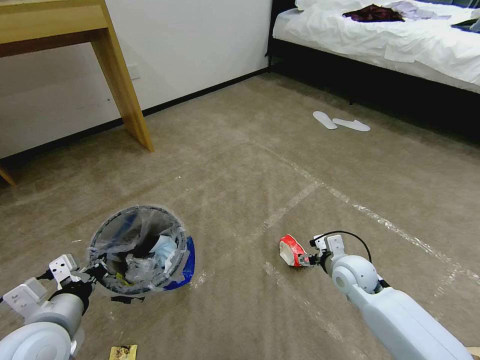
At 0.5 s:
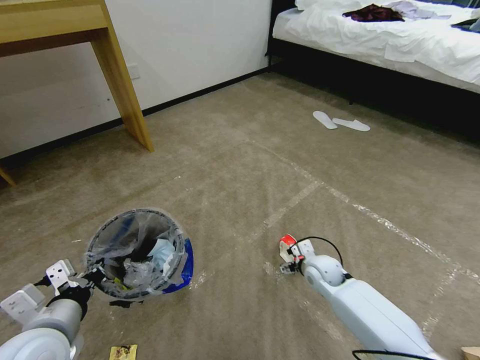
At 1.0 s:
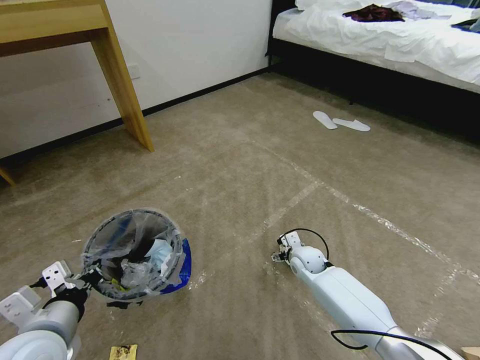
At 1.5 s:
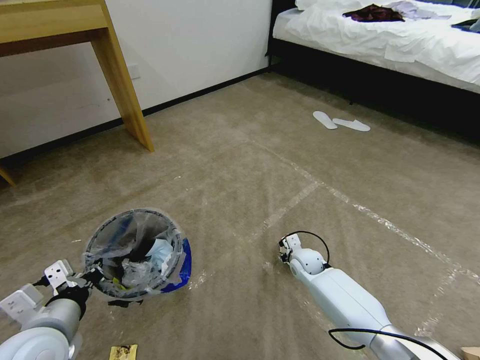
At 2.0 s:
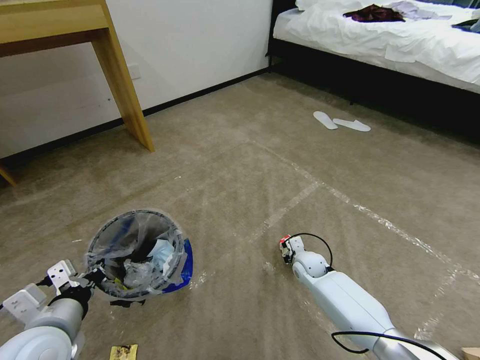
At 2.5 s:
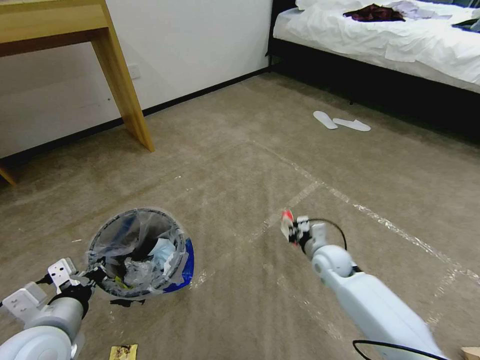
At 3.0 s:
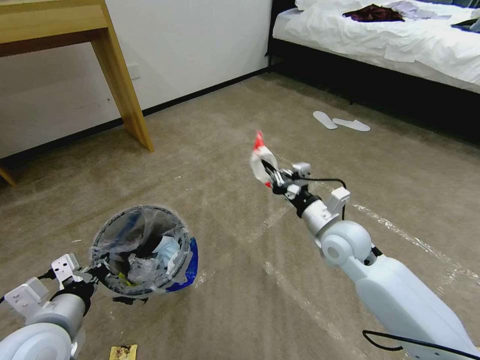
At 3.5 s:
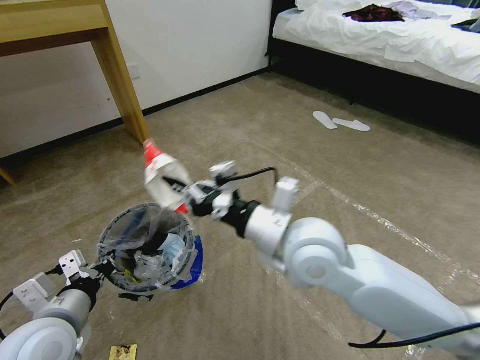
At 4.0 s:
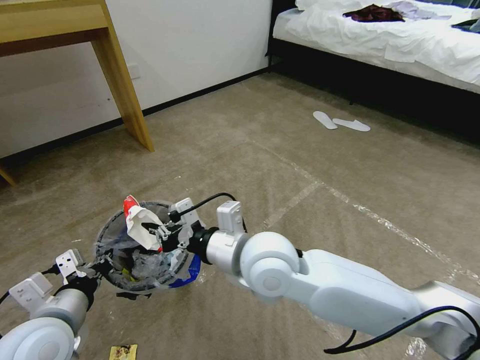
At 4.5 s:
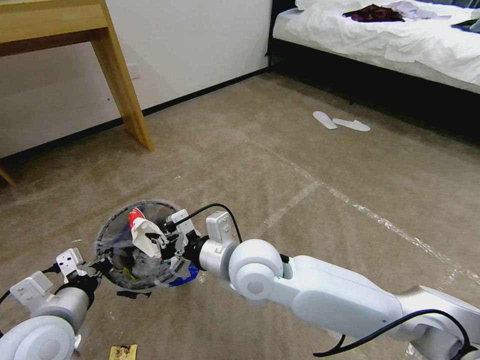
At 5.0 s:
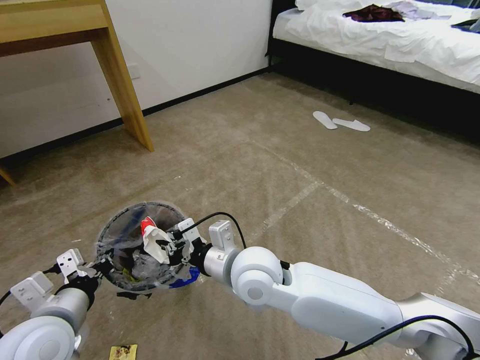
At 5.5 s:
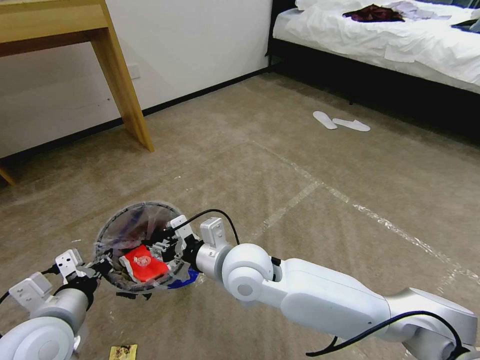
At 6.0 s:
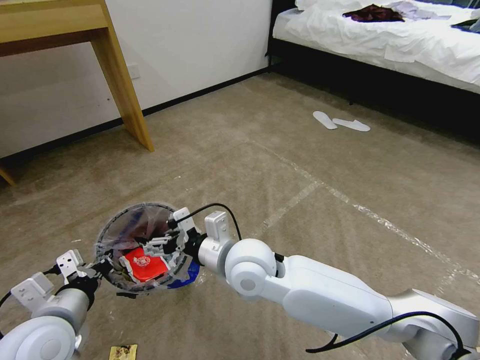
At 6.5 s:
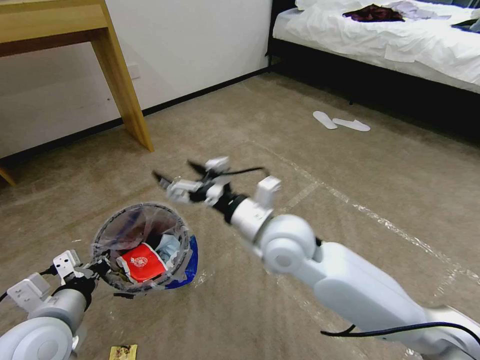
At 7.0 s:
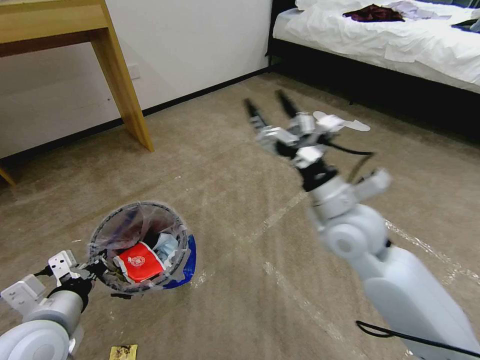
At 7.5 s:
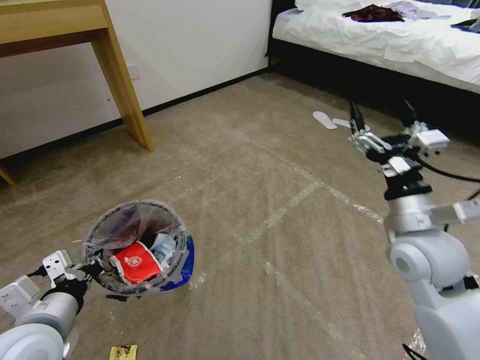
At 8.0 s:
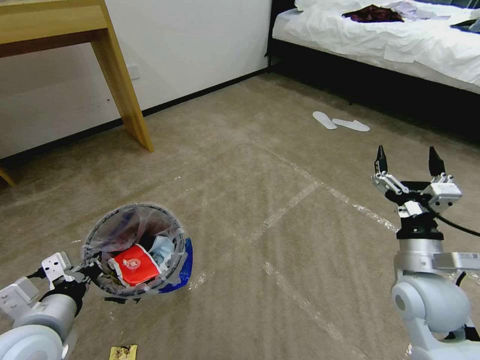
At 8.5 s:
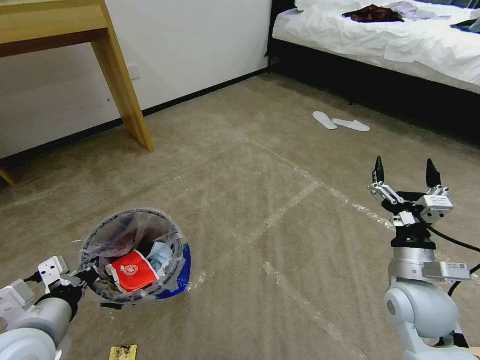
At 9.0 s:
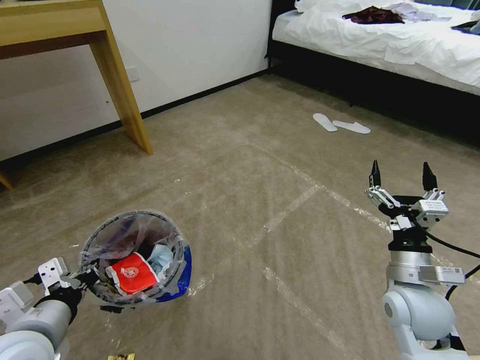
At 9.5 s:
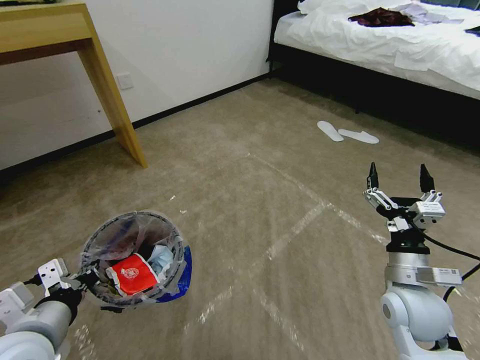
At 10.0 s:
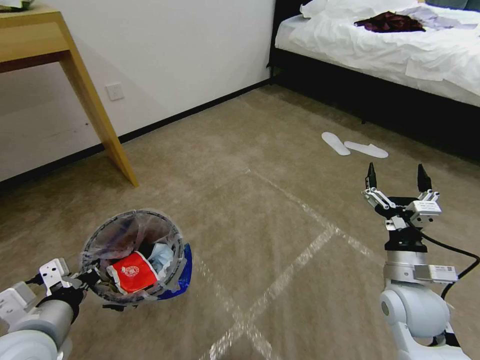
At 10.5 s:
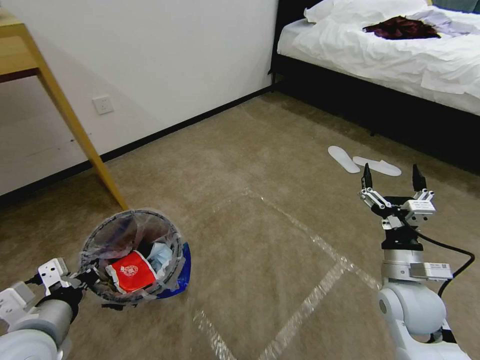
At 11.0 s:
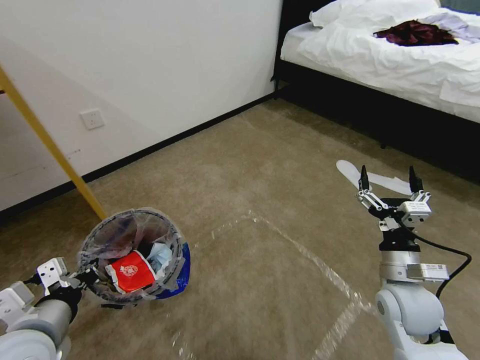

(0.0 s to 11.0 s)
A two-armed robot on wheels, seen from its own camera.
Task of the whole recording: Pick up the trash bin and place the garbage on the floor into it.
0.0 s - 2.0 s: The right gripper travels downward, forward and to the left by roughly 15 cm, and closes up.
2.0 s - 3.5 s: The right gripper shifts approximately 35 cm upward and backward.
3.5 s - 5.5 s: The right gripper heads to the left and downward, covering some 15 cm.
5.5 s - 7.5 s: The right gripper is displaced to the right by roughly 30 cm, and opens.
7.5 s - 9.0 s: The right gripper is displaced downward by about 10 cm.

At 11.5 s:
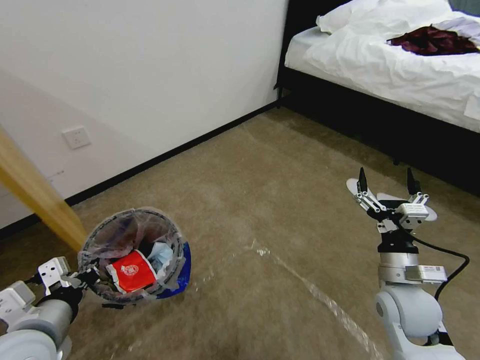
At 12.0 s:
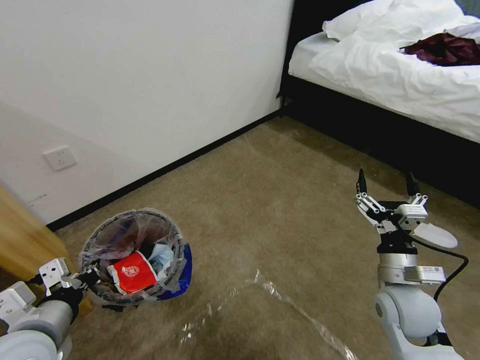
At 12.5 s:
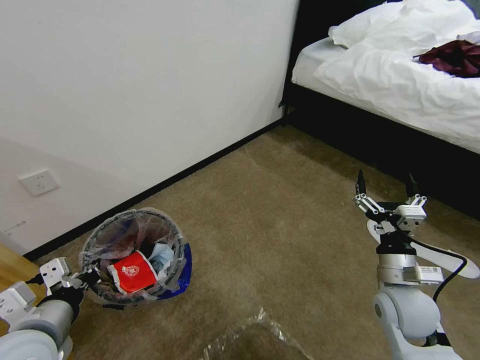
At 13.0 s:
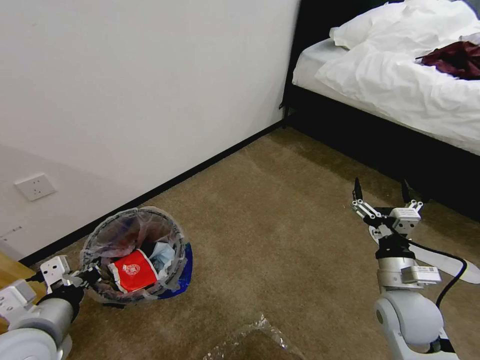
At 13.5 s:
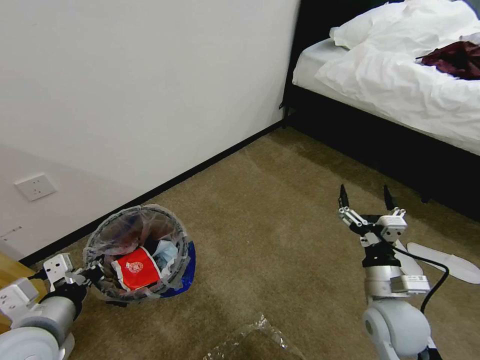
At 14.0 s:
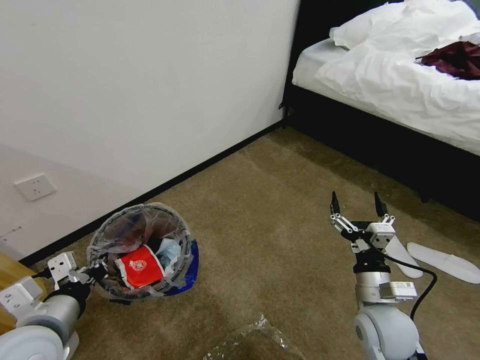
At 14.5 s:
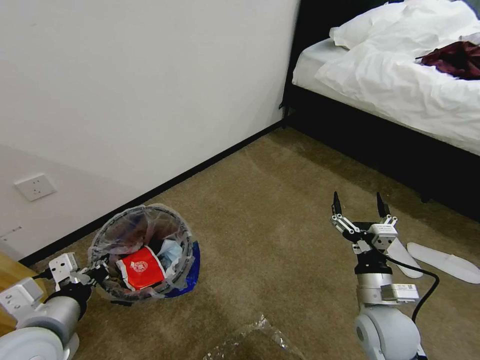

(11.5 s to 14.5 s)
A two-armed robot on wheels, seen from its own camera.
Task of the whole recording: Pick up the trash bin and place the garbage on the floor into it.
13.0 s - 14.5 s: The right gripper shifts by some 5 cm.
